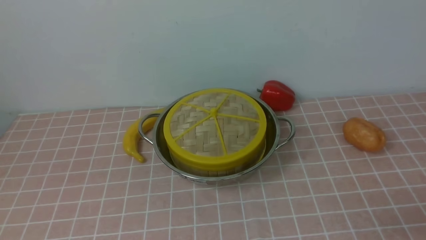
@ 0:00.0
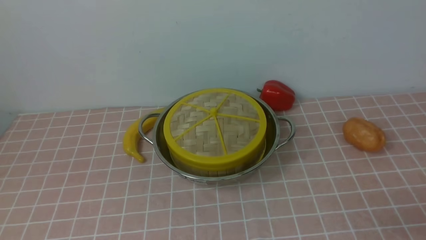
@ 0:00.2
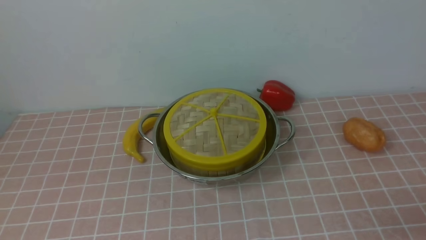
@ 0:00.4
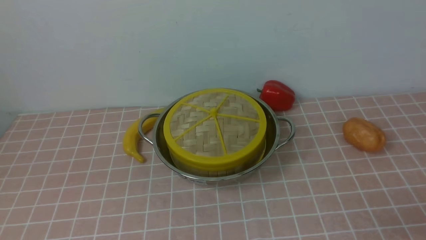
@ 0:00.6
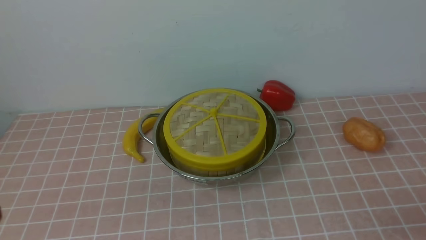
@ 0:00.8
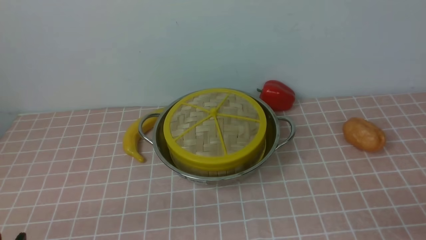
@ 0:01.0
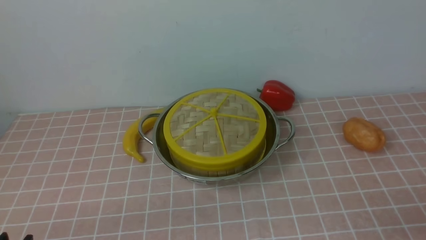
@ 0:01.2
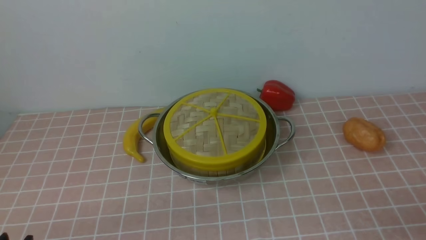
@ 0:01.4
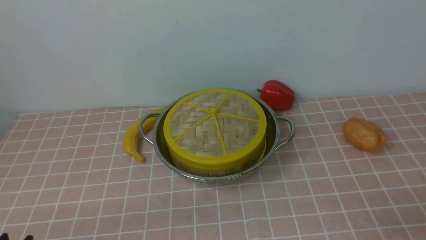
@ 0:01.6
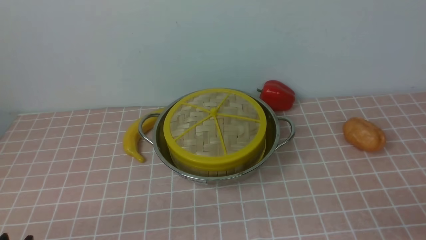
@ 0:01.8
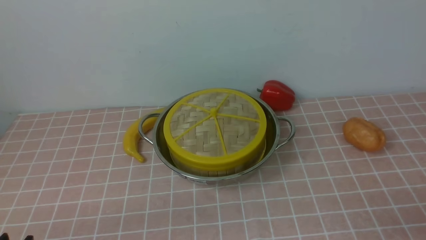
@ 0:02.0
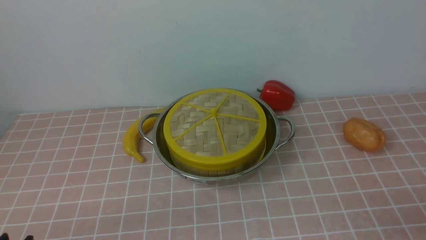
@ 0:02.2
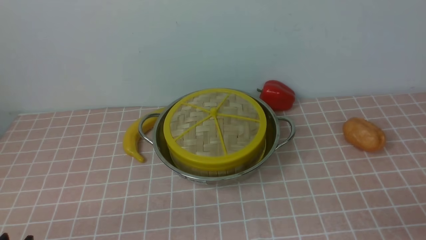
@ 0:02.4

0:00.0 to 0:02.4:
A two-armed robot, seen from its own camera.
Task of the whole recording: place the steamer in the pot on the pink tablecloth, and put the lid on the steamer.
0:01.2 to 0:02.4: The two grippers keep their place.
